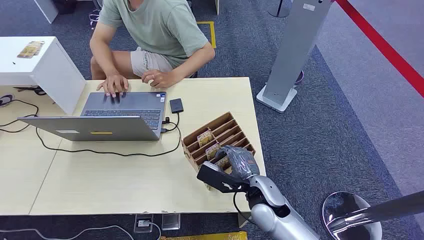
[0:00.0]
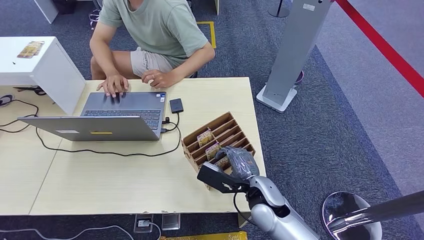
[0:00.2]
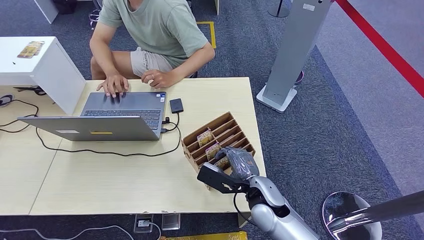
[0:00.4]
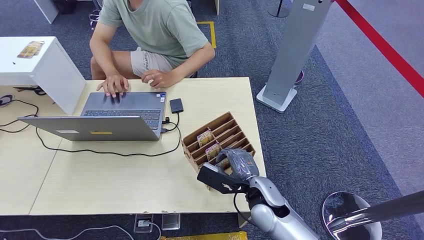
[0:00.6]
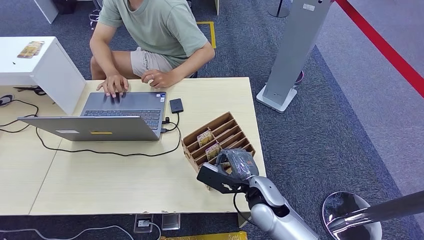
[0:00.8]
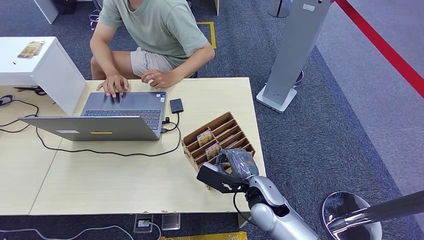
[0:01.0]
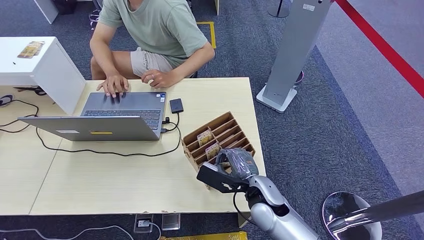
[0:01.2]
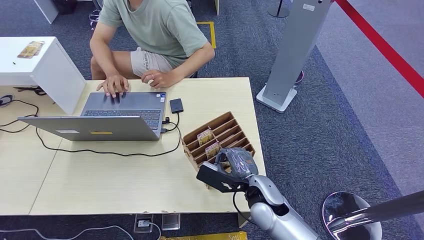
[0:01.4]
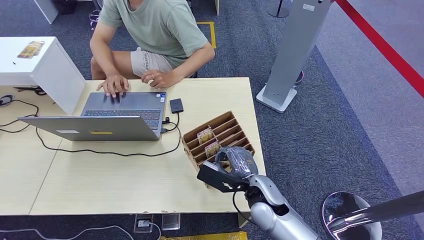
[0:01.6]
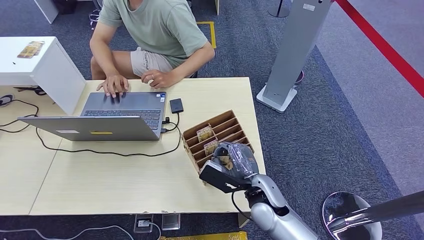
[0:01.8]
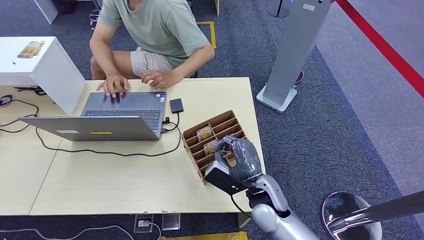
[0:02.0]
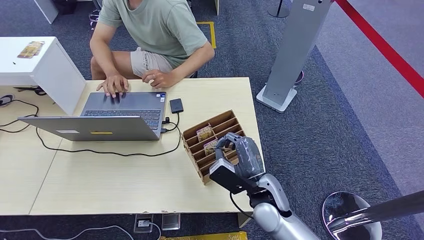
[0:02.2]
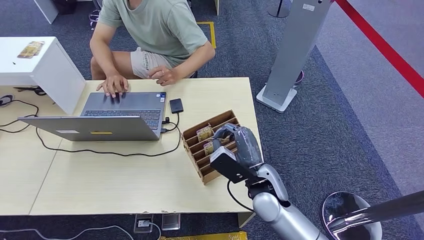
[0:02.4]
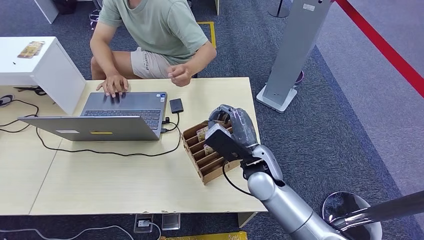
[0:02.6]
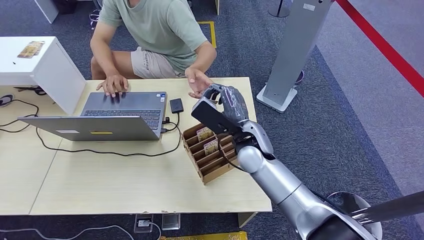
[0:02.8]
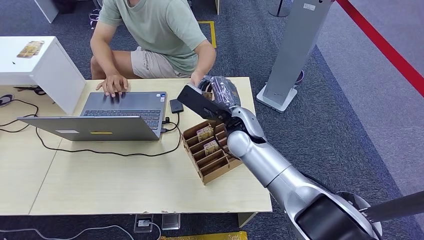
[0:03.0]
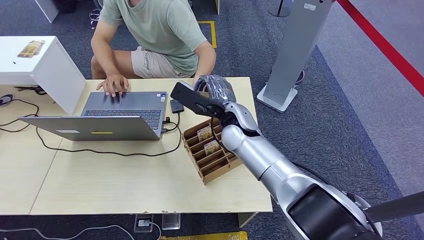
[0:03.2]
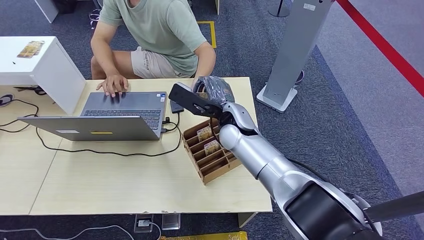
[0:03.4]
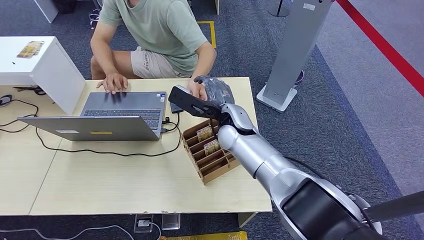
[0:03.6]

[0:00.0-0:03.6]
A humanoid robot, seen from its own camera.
Step, 0:00.0 to 0:01.8: Pick up the room card from the card holder.
Step, 0:03.0 to 0:03.6: Hand the room card to the target.
0:01.8 to 0:03.6: The right hand shifts roughly 20 cm forward and upward.
